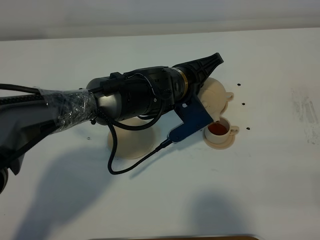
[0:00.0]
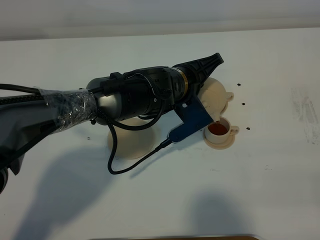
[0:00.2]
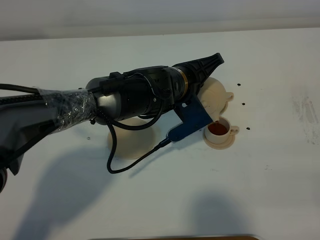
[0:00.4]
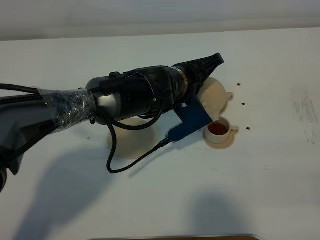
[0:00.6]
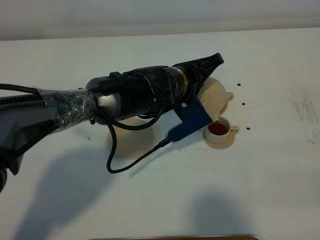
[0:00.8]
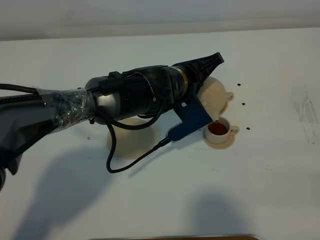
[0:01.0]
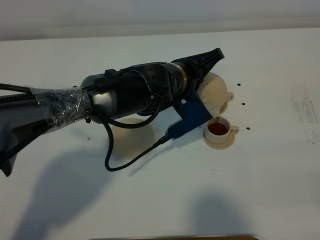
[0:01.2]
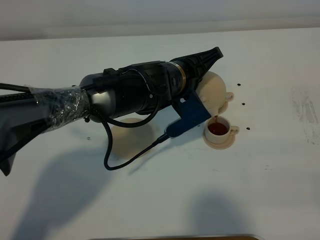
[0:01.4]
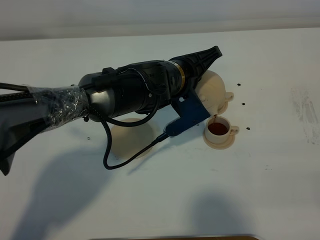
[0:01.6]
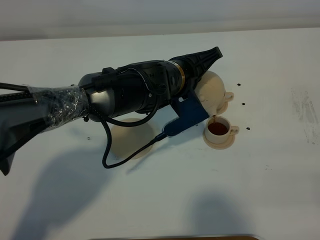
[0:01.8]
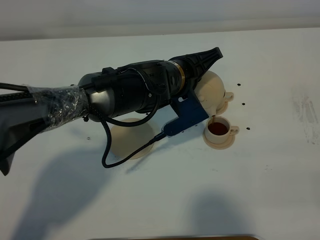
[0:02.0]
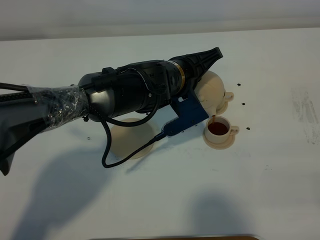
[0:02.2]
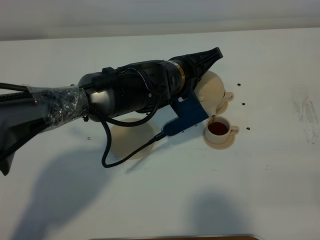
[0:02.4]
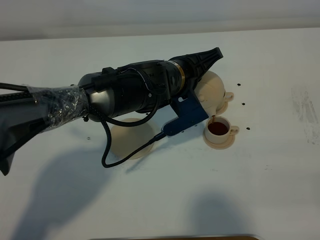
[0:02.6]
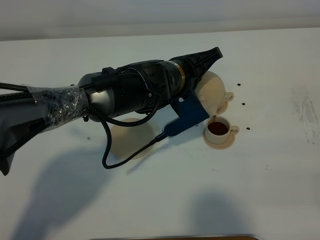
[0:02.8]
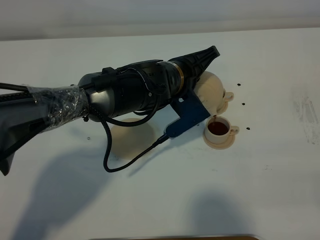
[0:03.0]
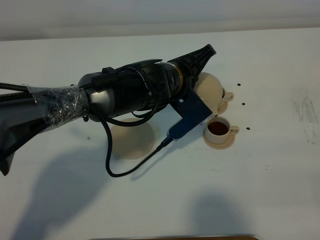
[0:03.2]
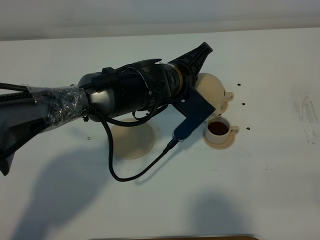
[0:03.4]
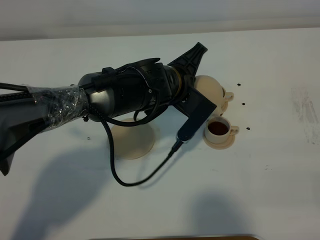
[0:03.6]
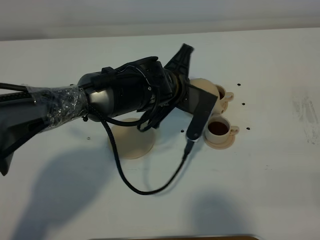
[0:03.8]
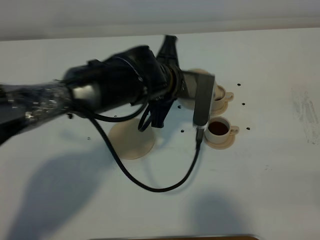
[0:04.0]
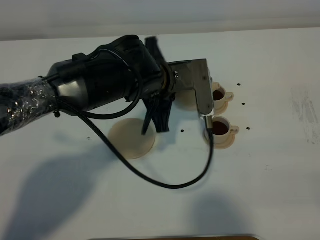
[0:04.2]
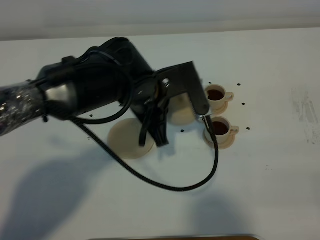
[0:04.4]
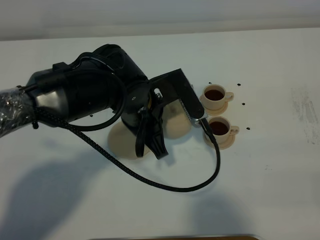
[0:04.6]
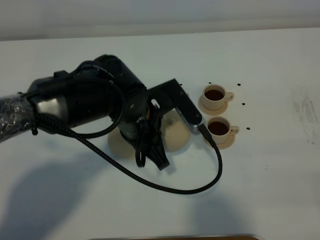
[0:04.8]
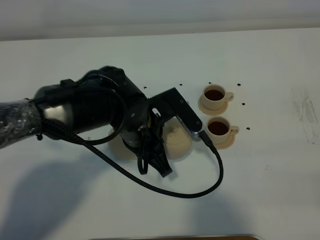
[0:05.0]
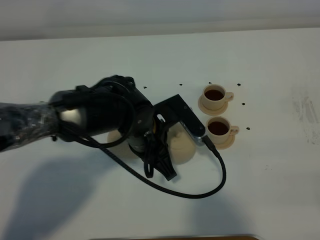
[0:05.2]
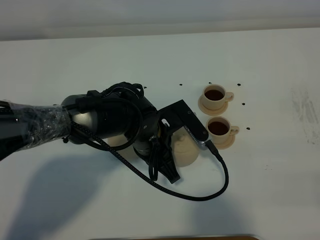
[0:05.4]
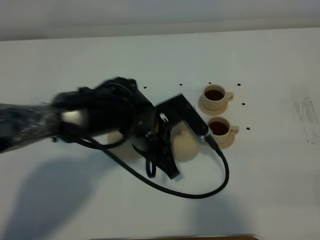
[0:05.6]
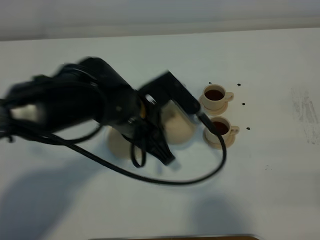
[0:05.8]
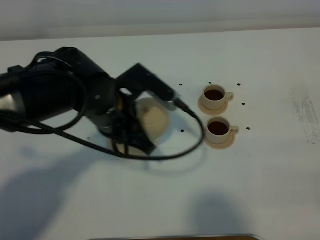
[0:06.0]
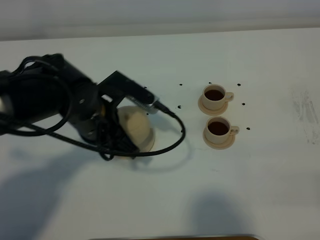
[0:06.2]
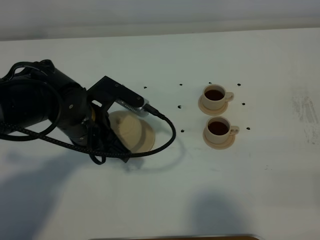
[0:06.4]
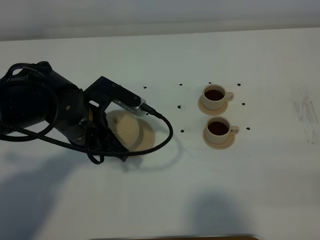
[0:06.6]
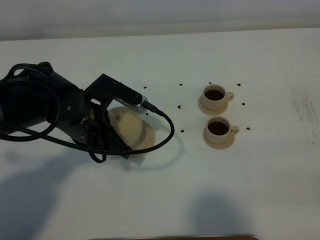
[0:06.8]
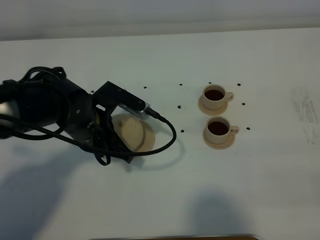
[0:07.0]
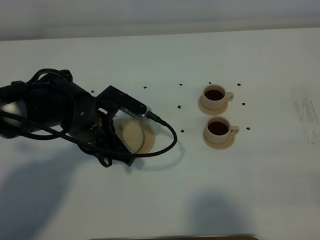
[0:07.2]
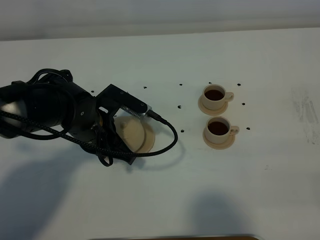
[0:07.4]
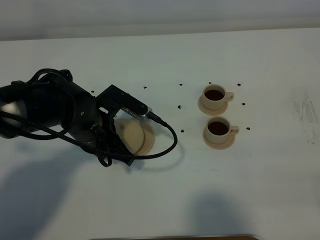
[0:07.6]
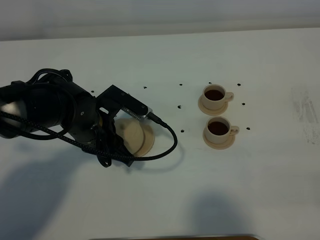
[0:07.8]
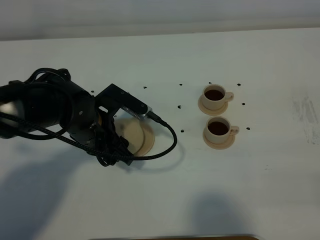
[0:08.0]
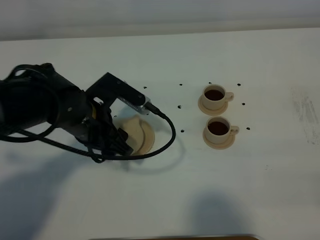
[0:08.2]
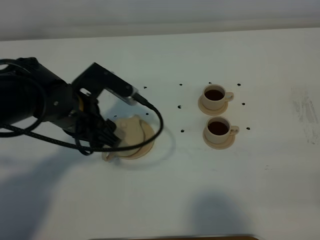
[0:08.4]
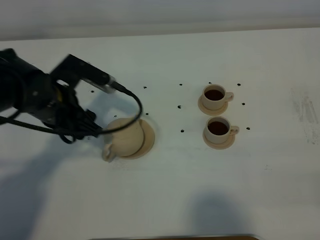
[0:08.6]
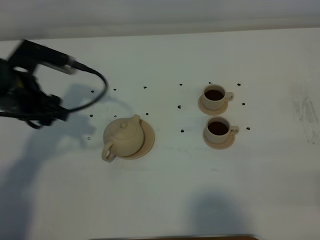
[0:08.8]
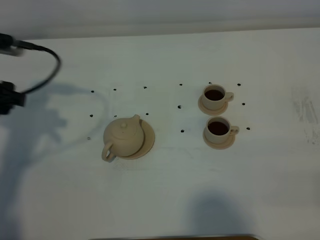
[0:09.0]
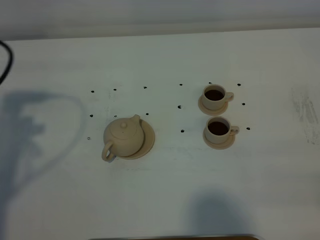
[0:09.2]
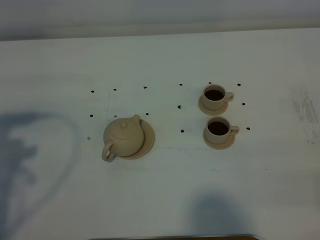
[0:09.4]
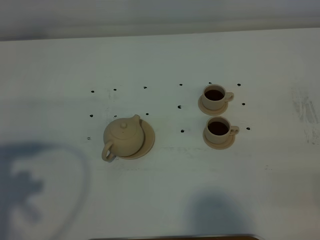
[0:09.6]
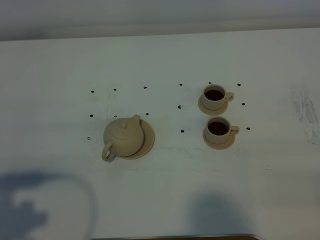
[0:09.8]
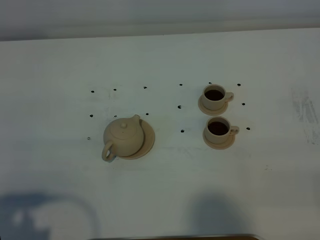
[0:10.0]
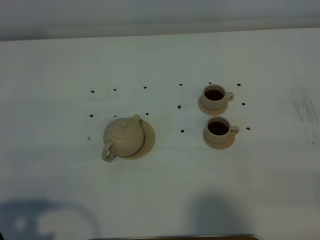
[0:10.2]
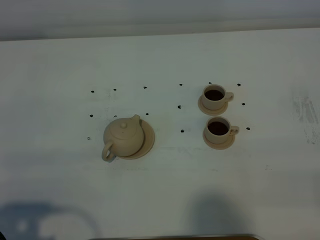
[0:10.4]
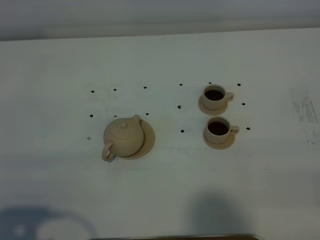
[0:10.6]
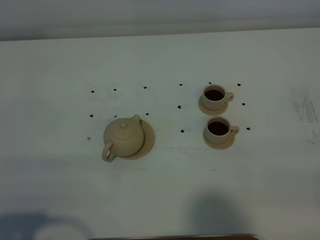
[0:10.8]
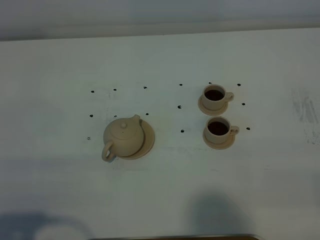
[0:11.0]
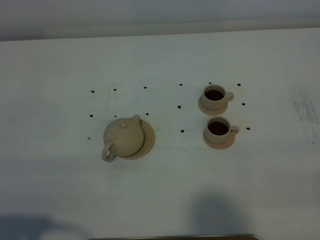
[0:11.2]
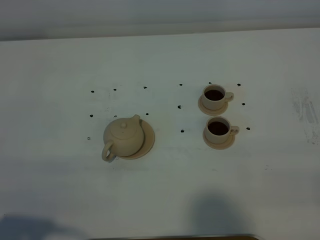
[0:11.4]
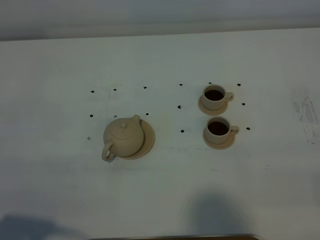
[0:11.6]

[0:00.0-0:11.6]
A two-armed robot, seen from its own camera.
Task of the whole recording: grasp the brown teapot and pour the tea into the two brown teacups one by one, put the brown teapot back in its original place.
Step, 0:00.0 to 0:03.2: Pour tea into the teacup with the left gripper.
0:00.0 to 0:02.8: Both grippers stay put.
0:02.8 to 0:04.4: The left gripper shifts by roughly 5 cm.
0:04.4 to 0:05.8: The left gripper travels downward and back again, roughly 10 cm each way.
0:05.8 to 0:07.2: The left gripper heads to the left and downward, covering approximately 10 cm.
0:07.2 to 0:08.8: The left gripper is displaced to the left and upward by about 15 cm, and opens up.
0:08.8 to 0:10.2: The left gripper shifts about 30 cm backward.
0:10.2 to 0:11.6: There are only small adjustments of the grippers.

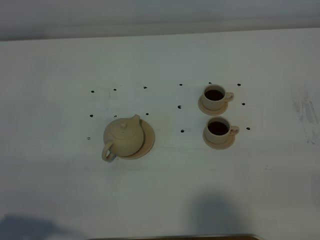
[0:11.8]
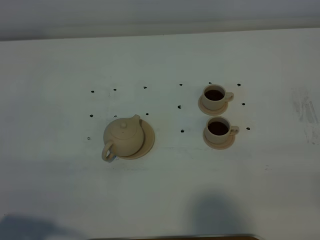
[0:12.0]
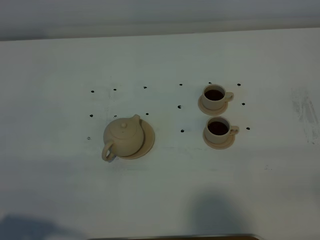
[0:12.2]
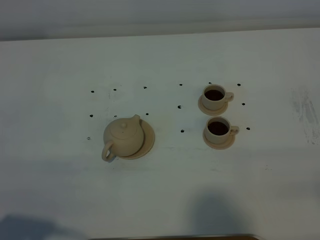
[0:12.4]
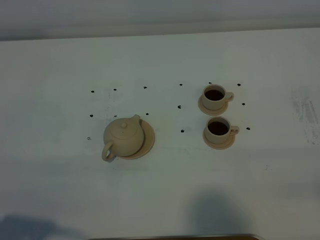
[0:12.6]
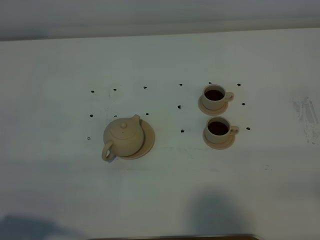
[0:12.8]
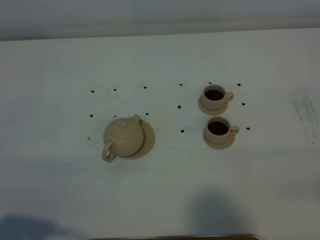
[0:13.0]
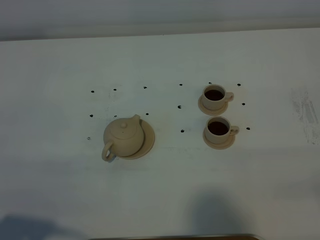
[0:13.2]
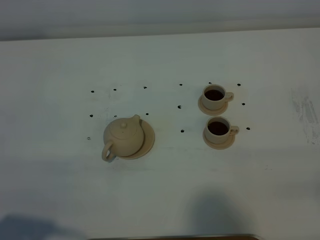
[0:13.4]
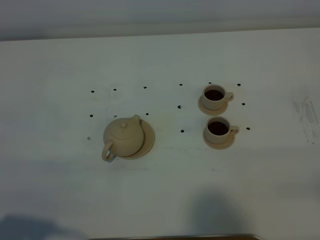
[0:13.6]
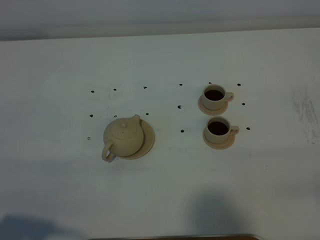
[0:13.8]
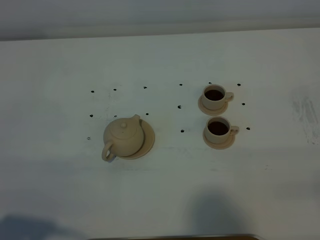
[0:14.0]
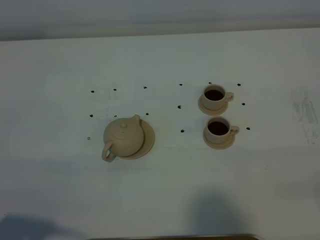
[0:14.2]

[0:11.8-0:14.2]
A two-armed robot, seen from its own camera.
Task of the whole recording: grasp the brown teapot and pour the tea into the two brown teacups one by one, put the brown teapot back in its original place.
0:13.0 to 0:14.2: Both grippers stay put.
